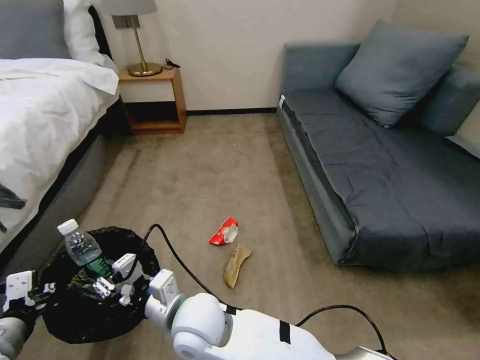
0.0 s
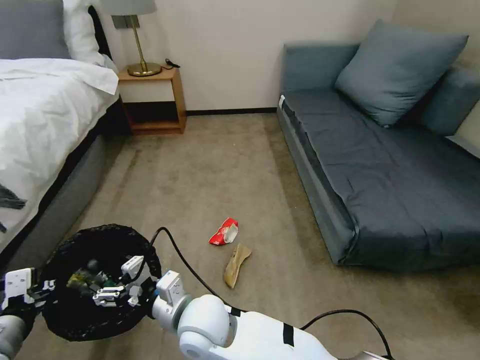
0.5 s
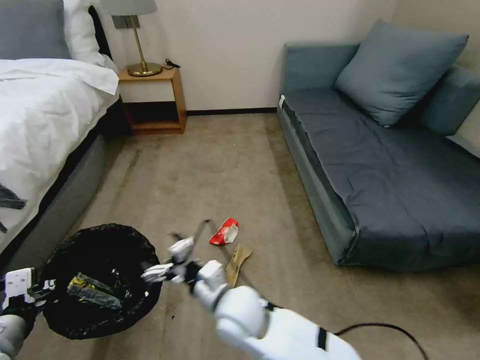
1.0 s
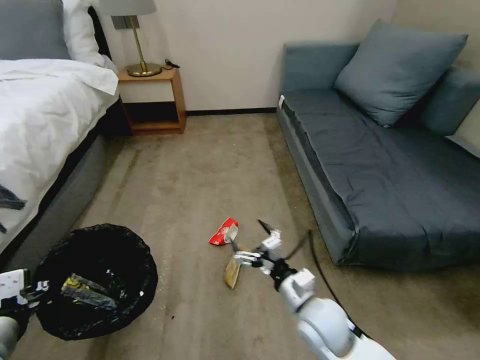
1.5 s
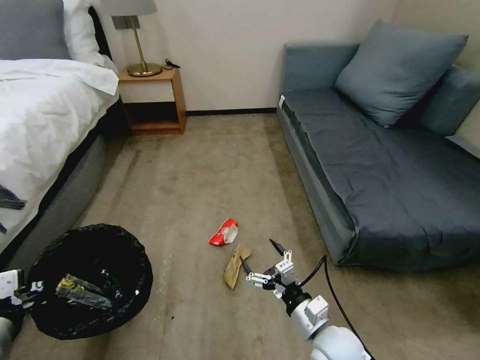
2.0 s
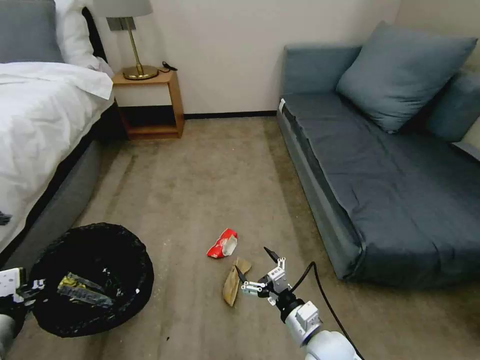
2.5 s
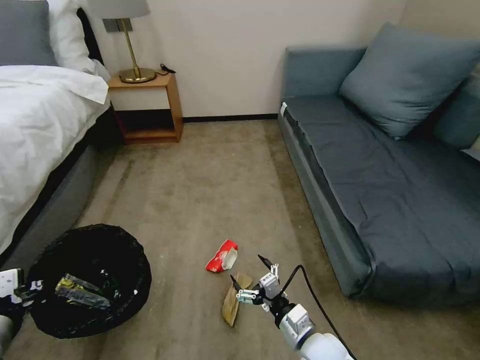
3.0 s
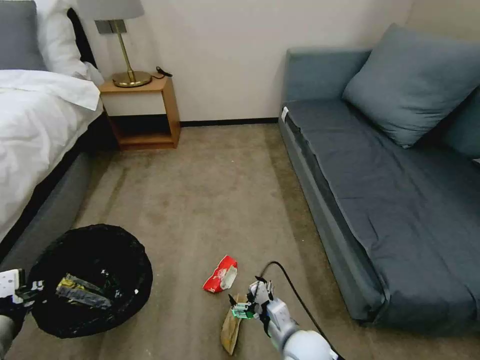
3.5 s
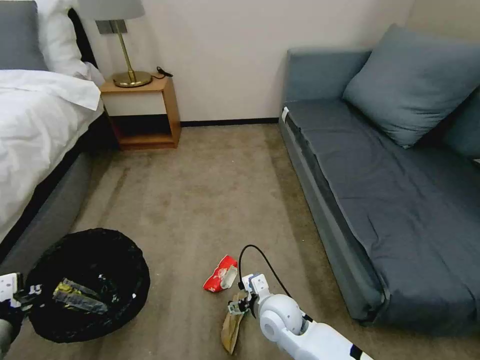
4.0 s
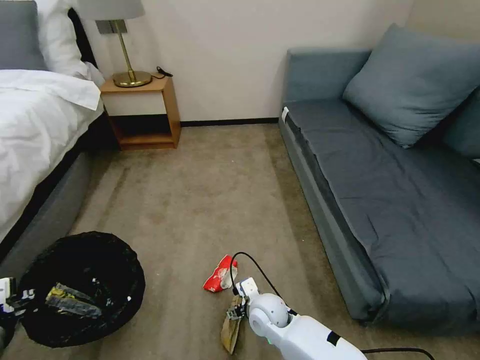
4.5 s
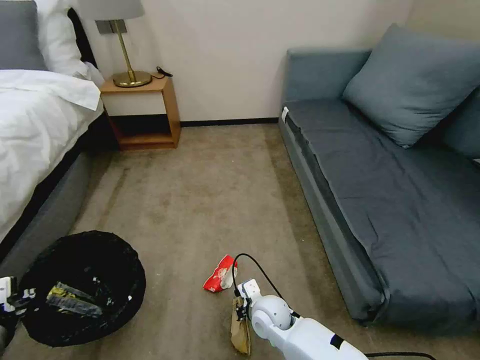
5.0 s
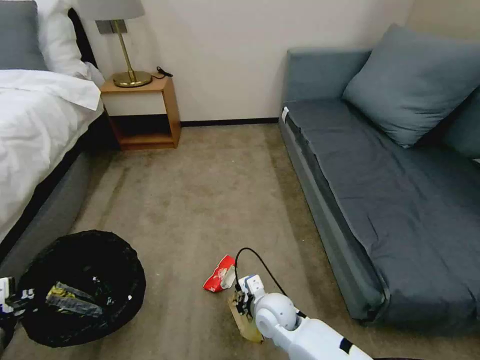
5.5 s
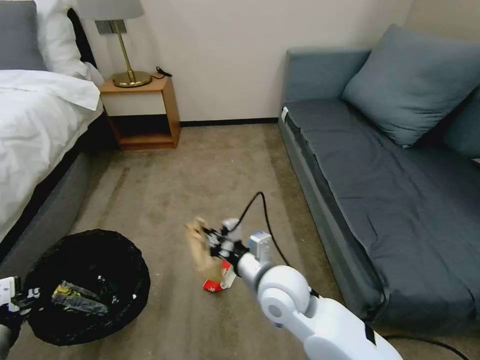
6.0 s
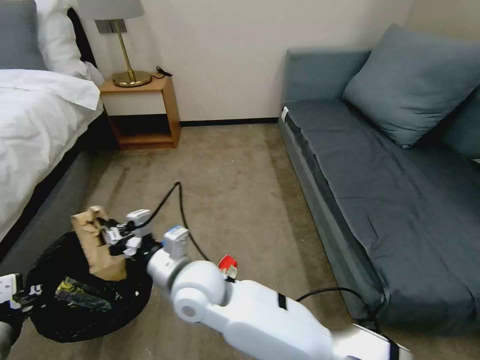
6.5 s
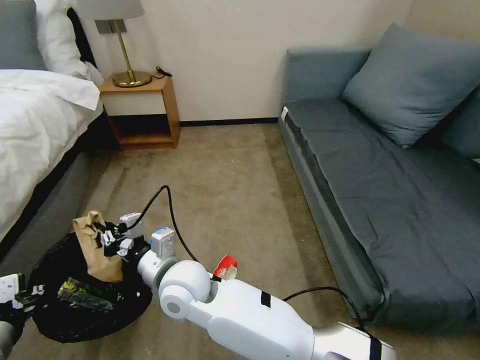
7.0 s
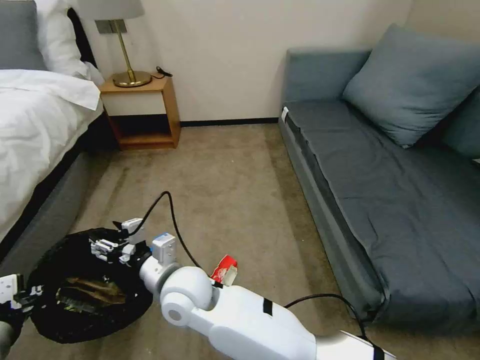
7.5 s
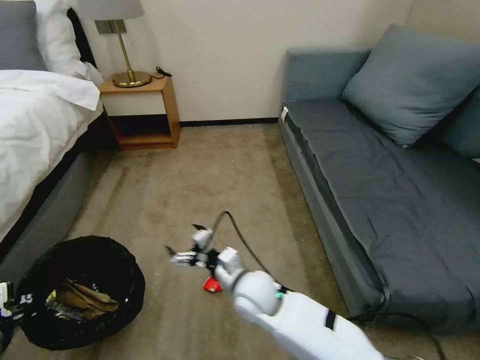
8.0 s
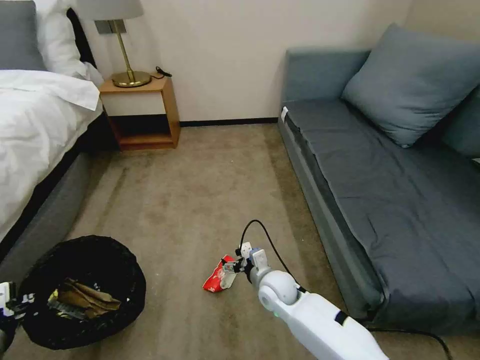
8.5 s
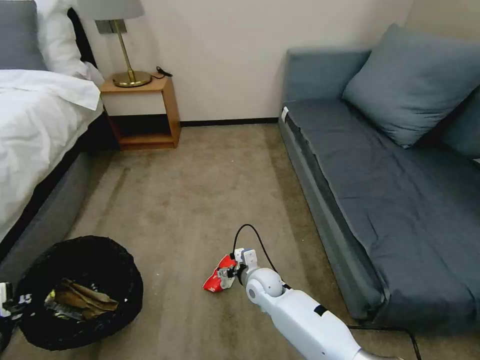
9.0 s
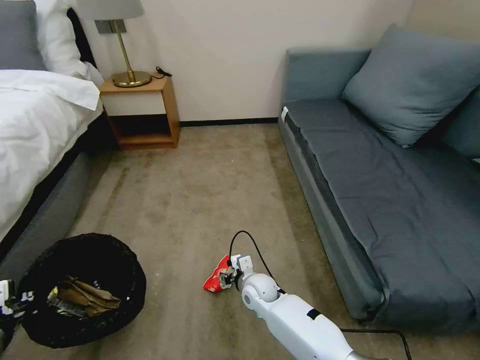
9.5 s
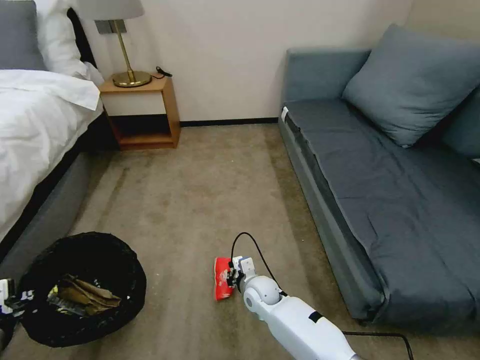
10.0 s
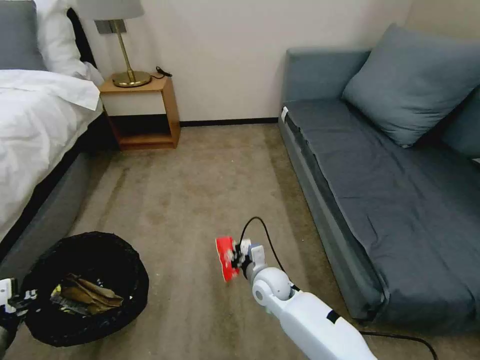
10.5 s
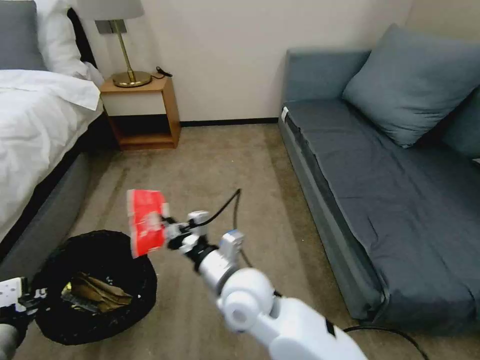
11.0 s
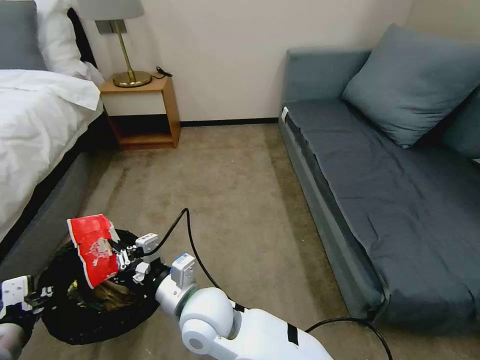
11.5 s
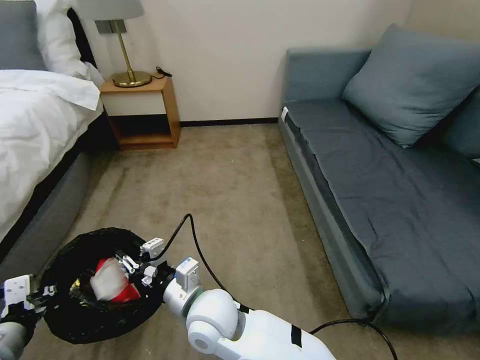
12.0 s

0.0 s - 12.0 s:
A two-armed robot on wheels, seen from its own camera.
Task of the whole recording: Pick up the trash bin, then pick up the garbage on the floor and place it into the trash bin.
0.0 s - 2.0 s: The right gripper shifts approximately 25 cm to the right, and opens its fingers.
2.0 s - 4.0 s: The right gripper shifts about 15 cm to the left and forward.
4.0 s - 6.0 s: The right gripper shifts approximately 15 cm upward, and closes its fingers.
6.0 s - 8.0 s: The right gripper travels downward by some 10 cm, goes to the left and returns, some 20 cm each way, and opens its fingers.
8.0 s - 10.0 s: The right gripper goes some 15 cm downward, and closes up.
10.0 s - 12.0 s: The right gripper is displaced upward, to the left and backward by roughly 25 cm.

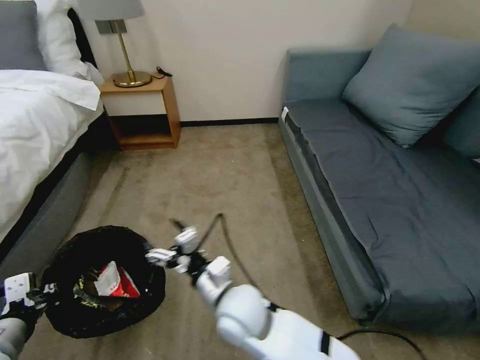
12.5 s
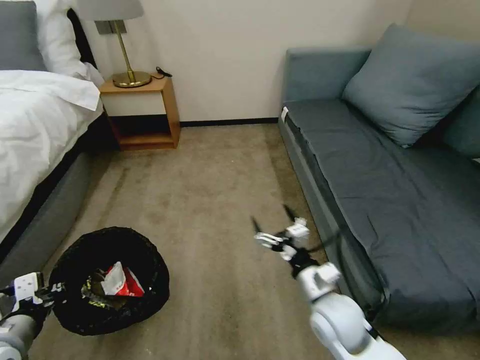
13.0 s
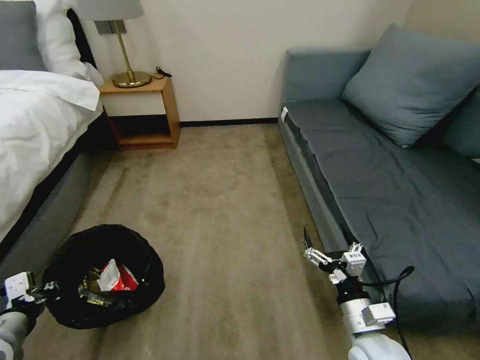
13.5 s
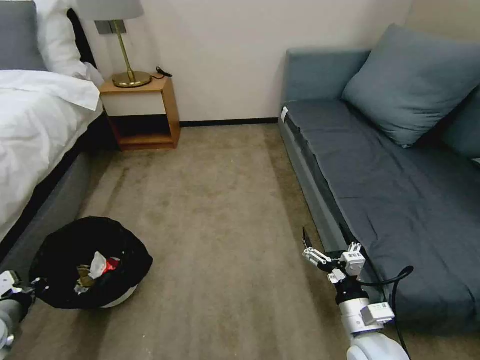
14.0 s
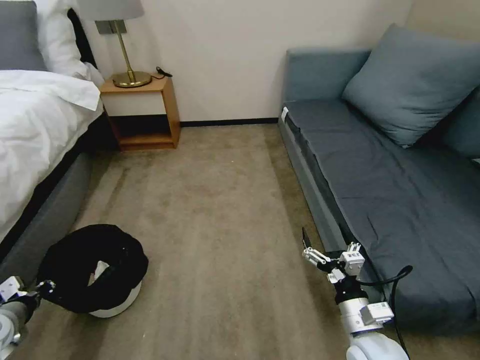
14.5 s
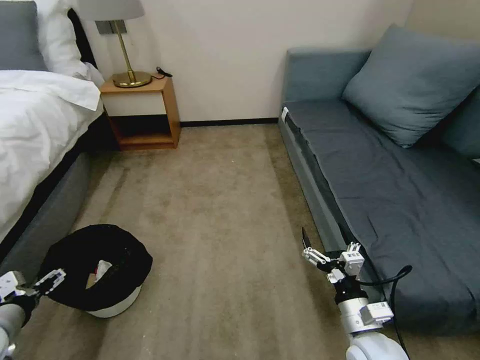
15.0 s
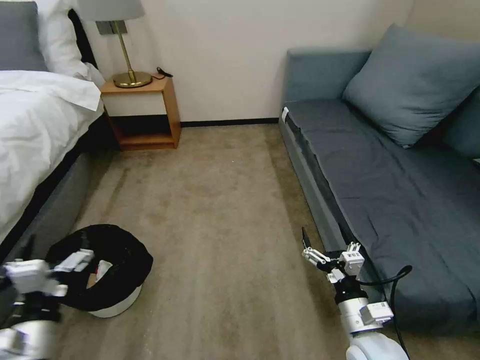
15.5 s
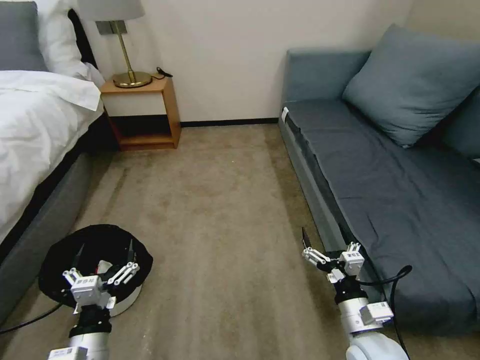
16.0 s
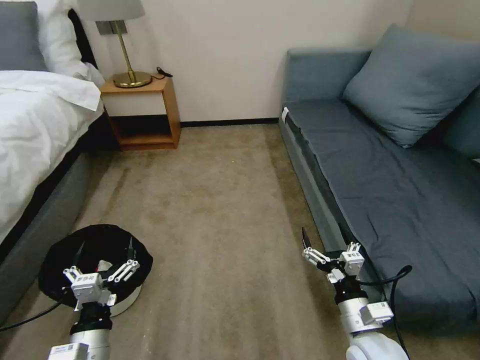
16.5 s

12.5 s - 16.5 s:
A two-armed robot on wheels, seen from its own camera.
Task of the whole recording: Pick up the trash bin, then pick up the garbage on the floor and place it into the trash bin.
12.5 s - 14.5 s: The right gripper shifts roughly 25 cm to the right. The left gripper heads to the left, downward and forward, covering some 15 cm.
14.5 s - 16.5 s: The left gripper is displaced to the right by approximately 25 cm, and opens.
